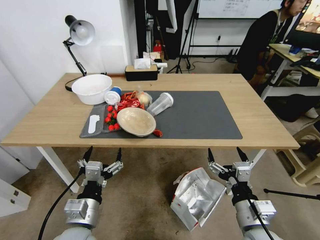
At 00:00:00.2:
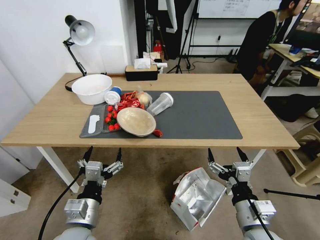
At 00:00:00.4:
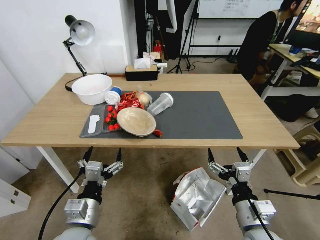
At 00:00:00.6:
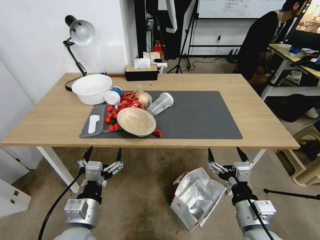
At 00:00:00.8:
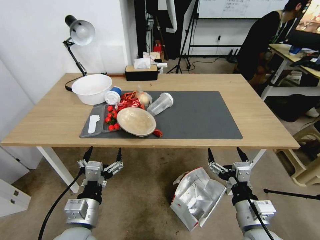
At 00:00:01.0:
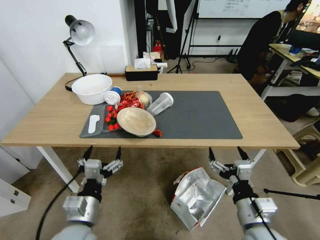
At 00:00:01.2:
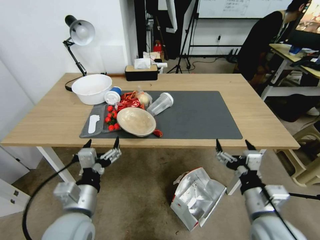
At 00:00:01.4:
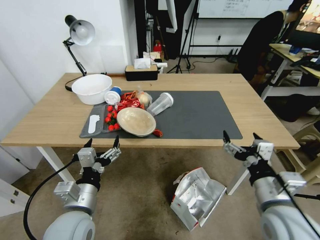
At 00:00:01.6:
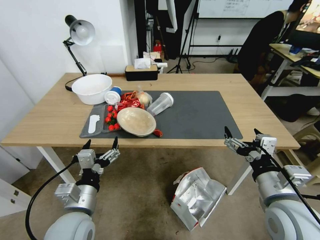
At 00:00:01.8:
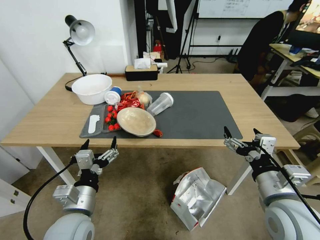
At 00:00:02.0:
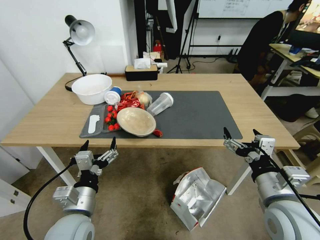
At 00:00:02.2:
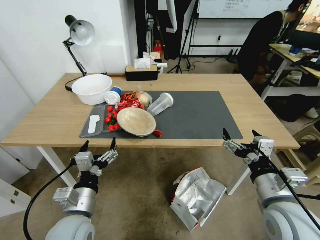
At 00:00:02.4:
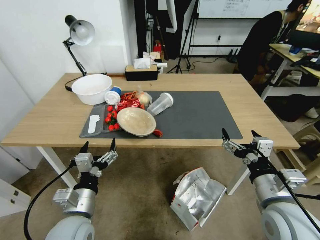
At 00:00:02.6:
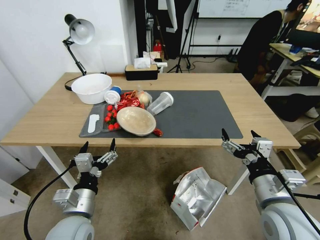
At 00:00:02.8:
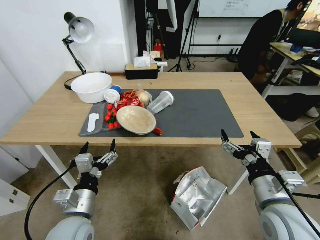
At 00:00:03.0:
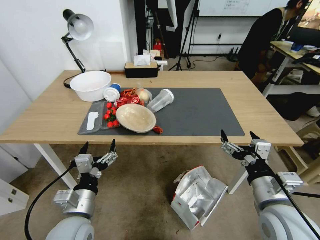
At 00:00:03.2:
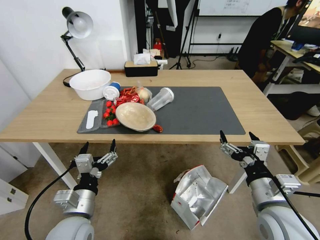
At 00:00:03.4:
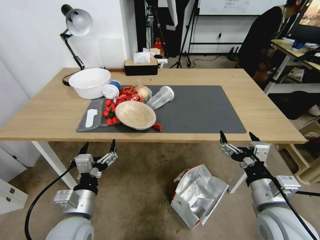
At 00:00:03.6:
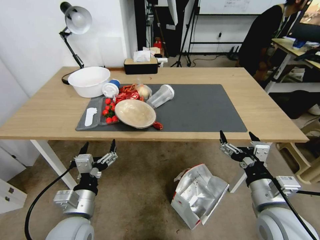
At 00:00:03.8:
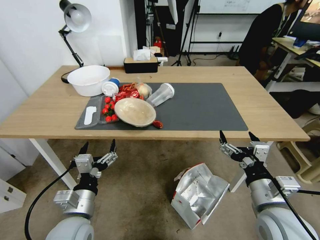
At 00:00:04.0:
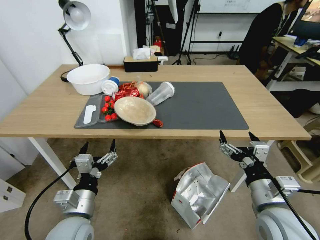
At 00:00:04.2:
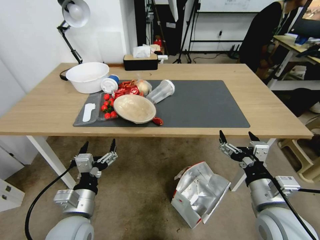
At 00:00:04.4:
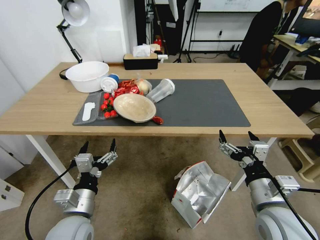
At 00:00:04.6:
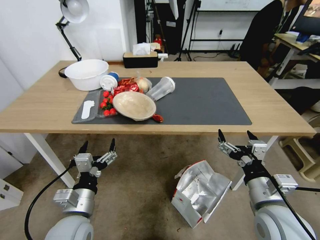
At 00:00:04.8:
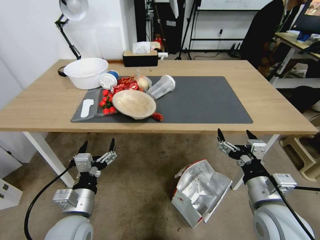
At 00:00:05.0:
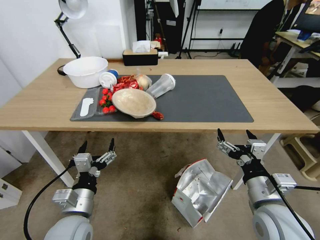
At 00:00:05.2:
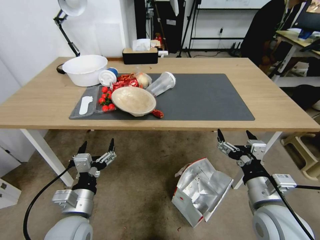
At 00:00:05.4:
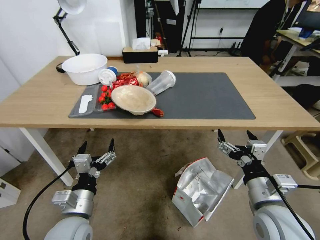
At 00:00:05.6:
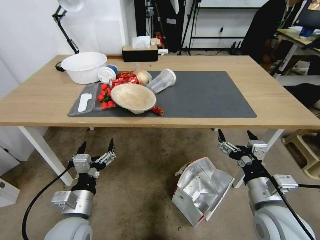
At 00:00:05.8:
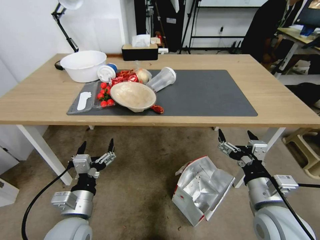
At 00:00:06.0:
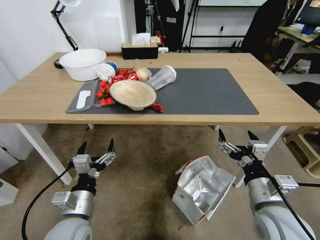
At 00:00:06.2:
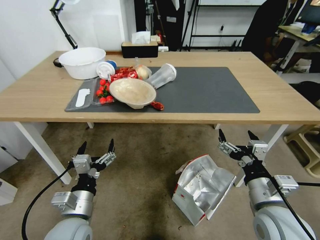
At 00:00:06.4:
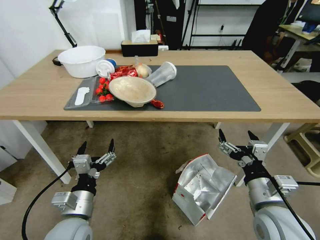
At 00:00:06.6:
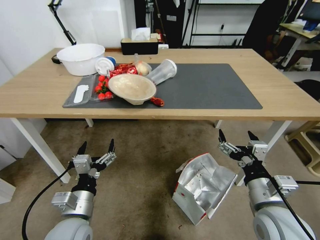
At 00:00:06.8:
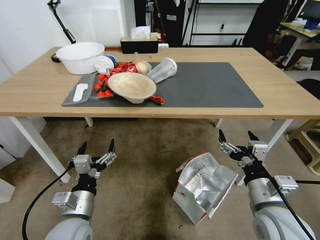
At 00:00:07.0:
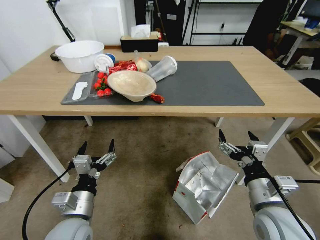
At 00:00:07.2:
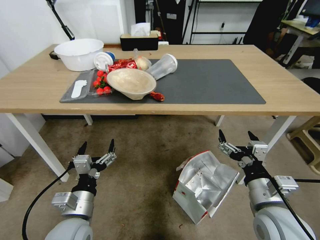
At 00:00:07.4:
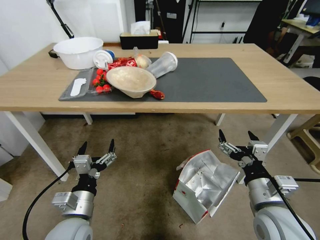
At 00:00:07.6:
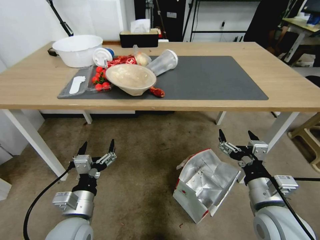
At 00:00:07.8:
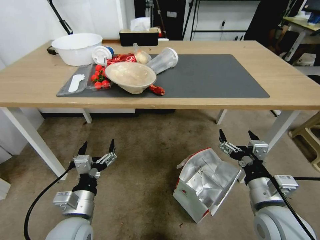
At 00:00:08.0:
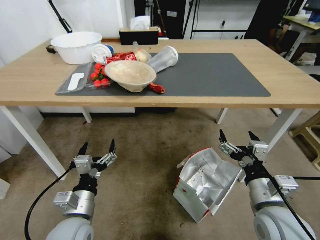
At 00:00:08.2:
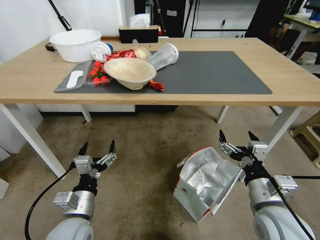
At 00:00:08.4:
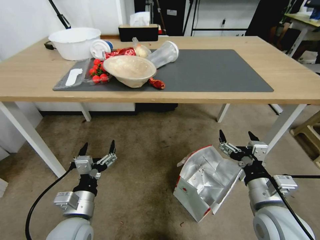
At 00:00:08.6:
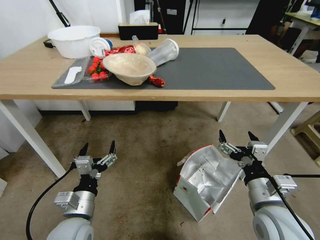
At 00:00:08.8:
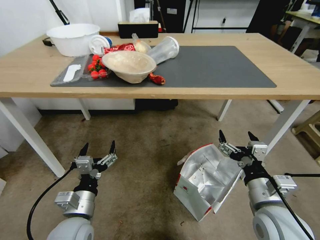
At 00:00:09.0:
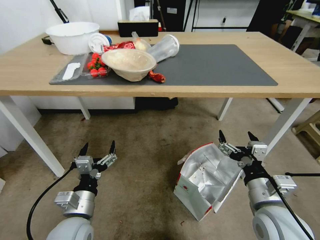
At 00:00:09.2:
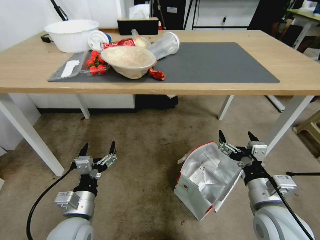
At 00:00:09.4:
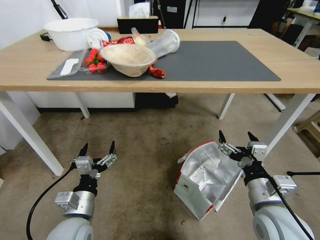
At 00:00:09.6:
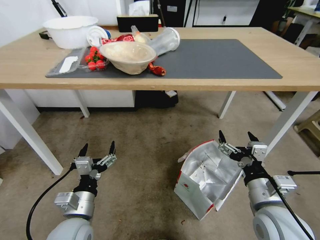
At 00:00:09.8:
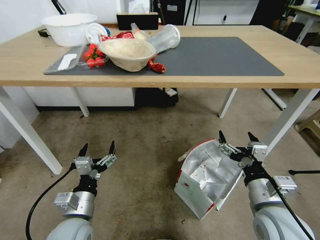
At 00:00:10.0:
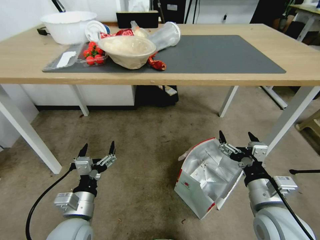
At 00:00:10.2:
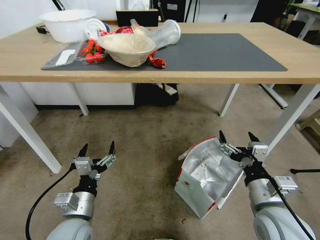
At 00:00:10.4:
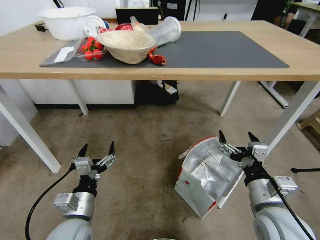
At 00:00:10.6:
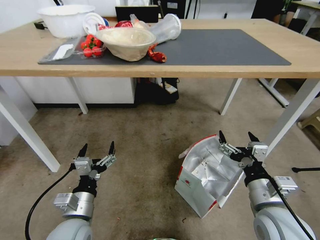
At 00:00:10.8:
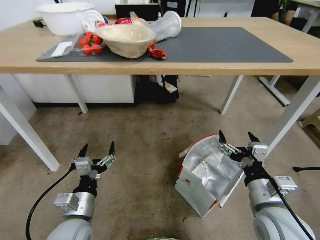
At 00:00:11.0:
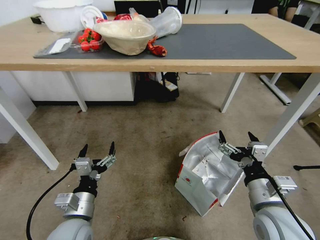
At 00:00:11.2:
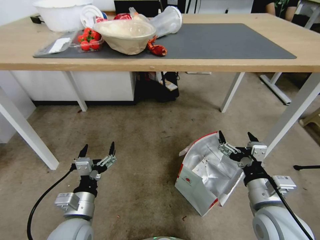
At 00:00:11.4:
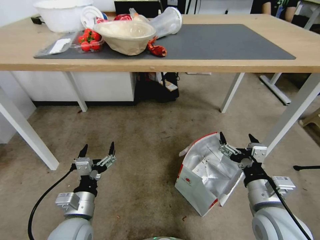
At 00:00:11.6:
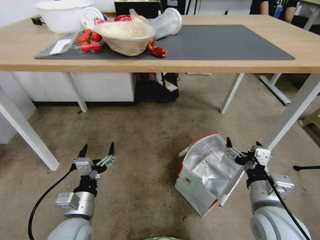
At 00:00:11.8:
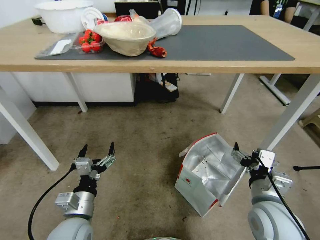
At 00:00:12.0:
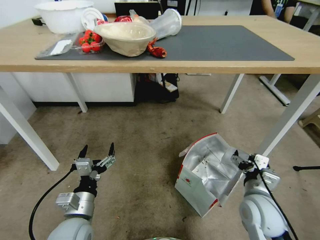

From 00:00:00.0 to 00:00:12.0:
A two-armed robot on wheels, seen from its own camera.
Task of the whole recording: Pick up the food delivery bag from the floor and place it on the table.
From 00:00:10.4 to 00:00:12.0: The right gripper heads downward, covering roughly 5 cm.

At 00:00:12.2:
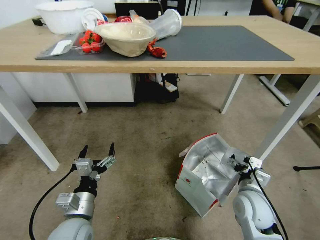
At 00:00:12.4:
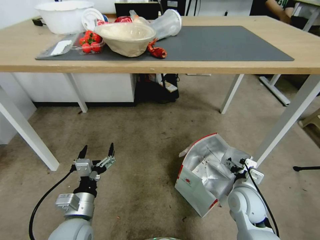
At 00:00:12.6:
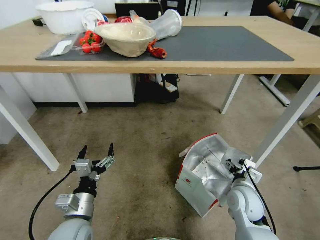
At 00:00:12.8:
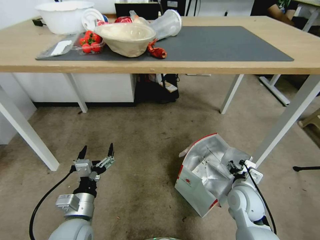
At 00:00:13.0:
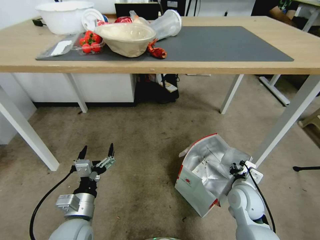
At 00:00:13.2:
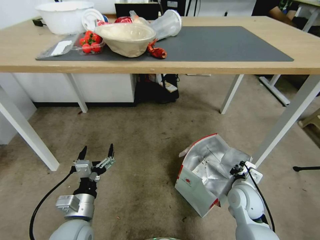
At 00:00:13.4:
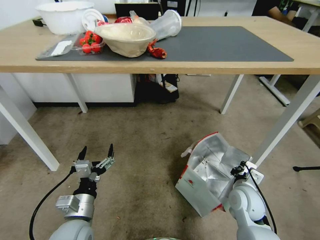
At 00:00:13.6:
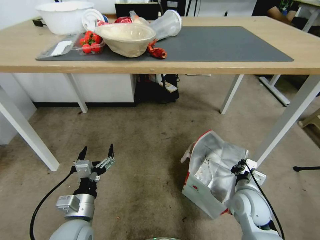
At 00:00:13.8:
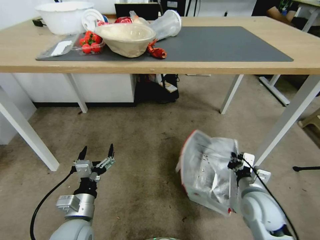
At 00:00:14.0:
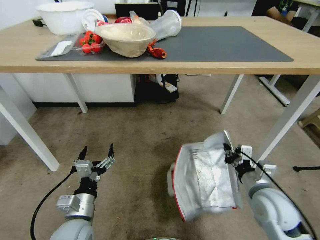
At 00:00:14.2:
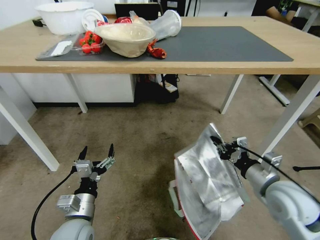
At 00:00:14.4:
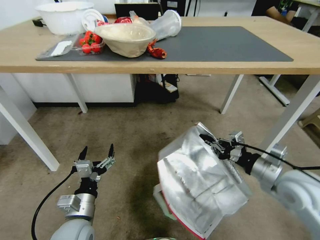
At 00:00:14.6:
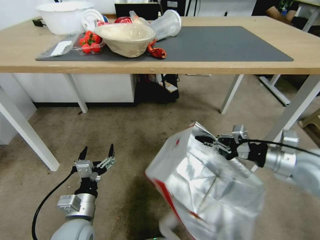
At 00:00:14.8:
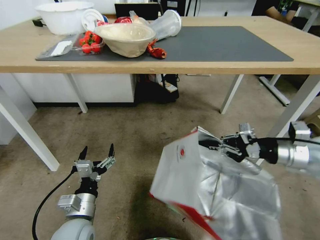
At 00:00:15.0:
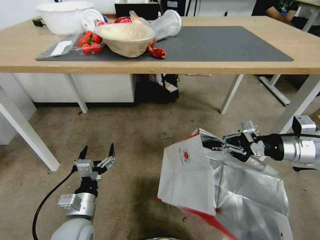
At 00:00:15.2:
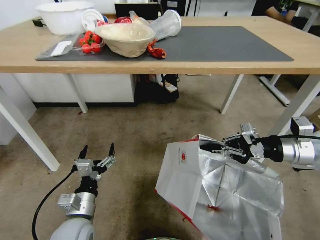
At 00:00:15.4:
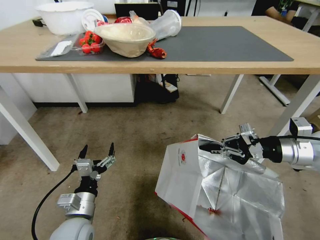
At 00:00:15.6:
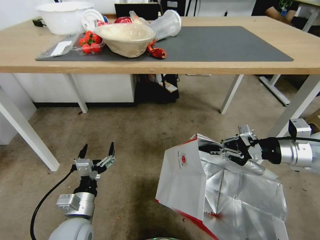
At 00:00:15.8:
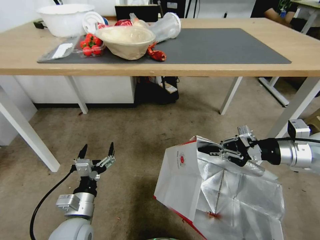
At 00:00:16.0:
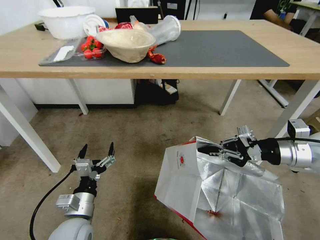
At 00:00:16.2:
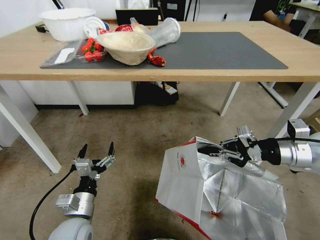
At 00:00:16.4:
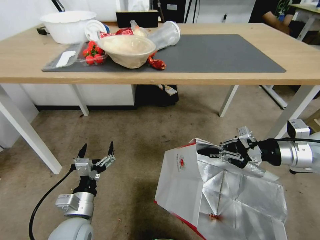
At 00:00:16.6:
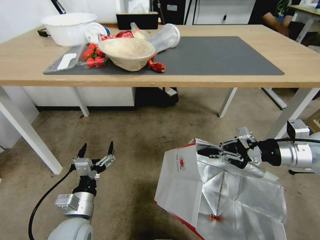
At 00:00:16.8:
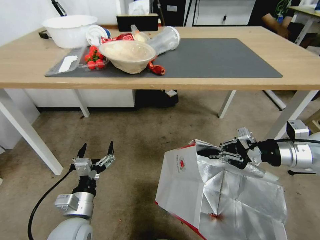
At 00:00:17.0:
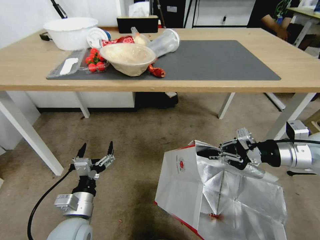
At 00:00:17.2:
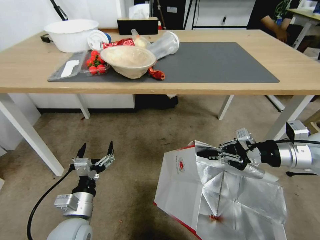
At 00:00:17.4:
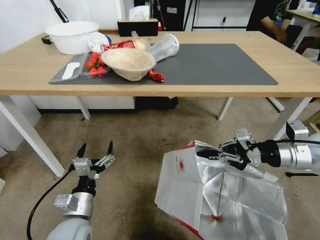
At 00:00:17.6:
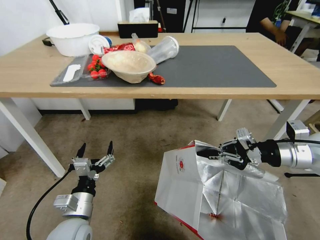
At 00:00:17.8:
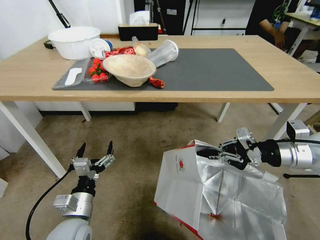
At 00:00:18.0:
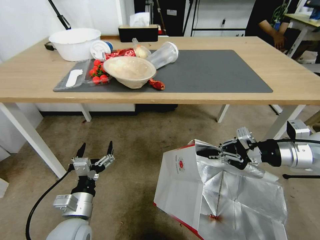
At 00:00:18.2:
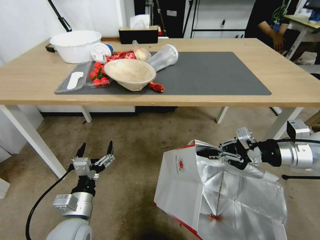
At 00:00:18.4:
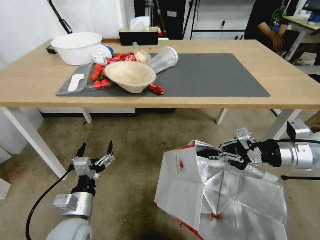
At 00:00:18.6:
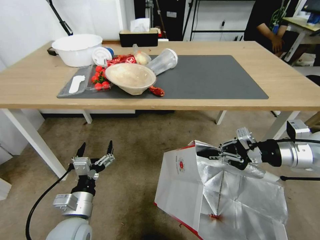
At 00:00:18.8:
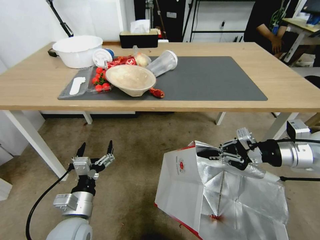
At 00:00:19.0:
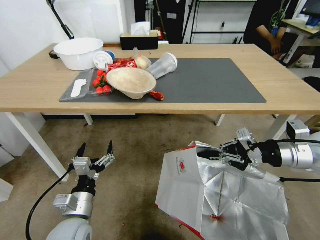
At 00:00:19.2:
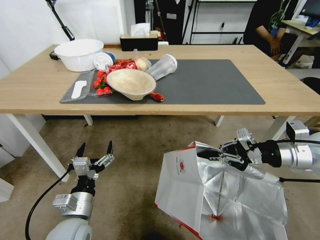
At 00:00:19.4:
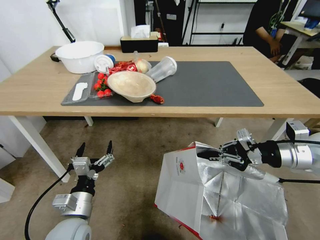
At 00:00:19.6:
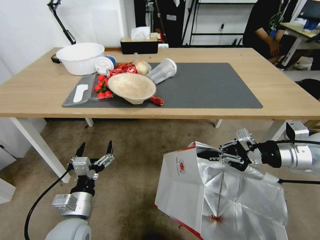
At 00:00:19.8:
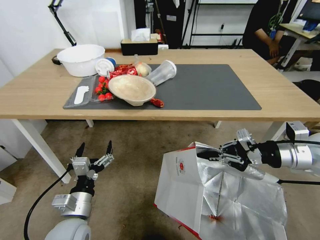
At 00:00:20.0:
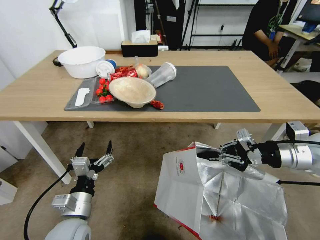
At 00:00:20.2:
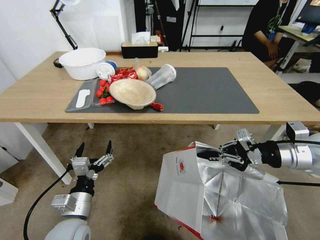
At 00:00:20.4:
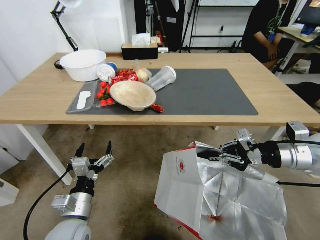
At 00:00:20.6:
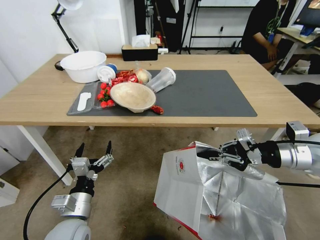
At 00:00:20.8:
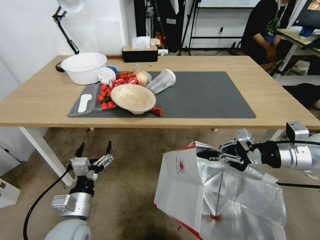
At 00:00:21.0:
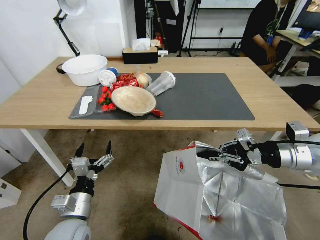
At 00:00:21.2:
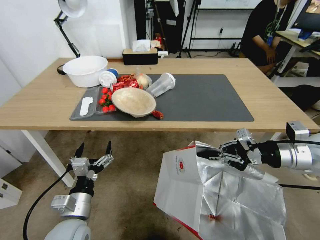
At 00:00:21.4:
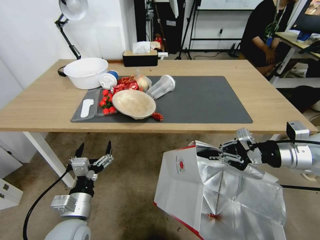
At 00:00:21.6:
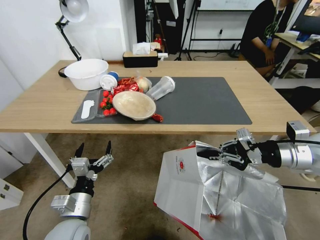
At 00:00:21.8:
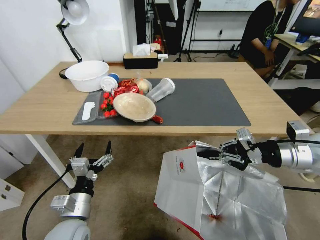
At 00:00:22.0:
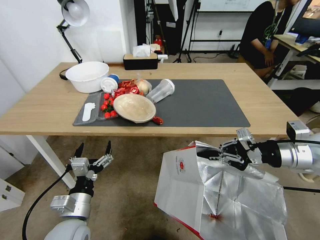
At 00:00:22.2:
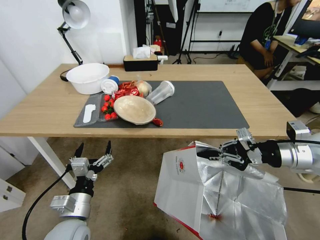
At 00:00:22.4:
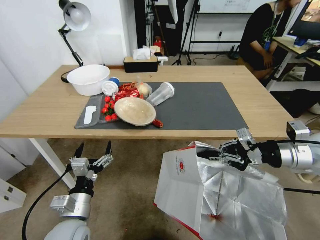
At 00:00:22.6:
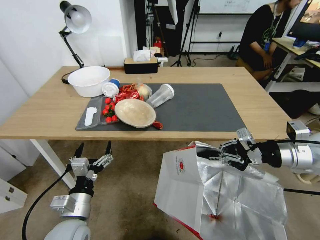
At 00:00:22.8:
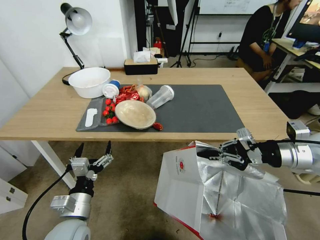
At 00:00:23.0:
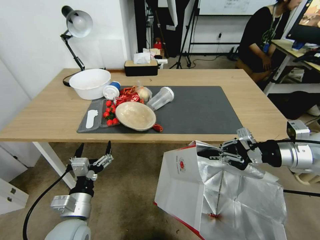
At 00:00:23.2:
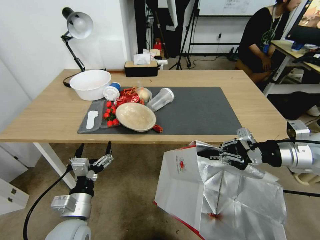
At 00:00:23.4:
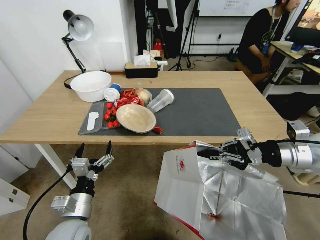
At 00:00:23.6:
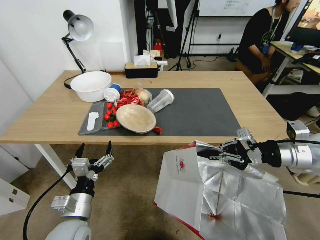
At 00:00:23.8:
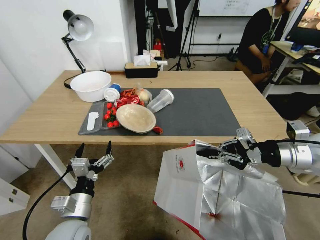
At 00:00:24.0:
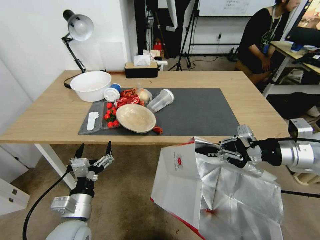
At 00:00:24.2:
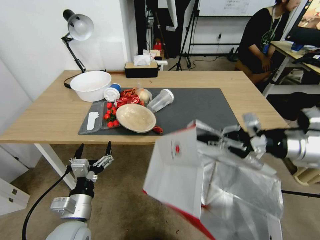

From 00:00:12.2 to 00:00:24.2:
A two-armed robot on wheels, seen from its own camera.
Task of the whole recording: Pick up the food delivery bag from the floor and place it on the table.
From 00:00:12.2 to 00:00:13.8: The right gripper closes.
From 00:00:13.8 to 00:00:15.2: The right gripper shifts some 25 cm upward, to the right and forward.
